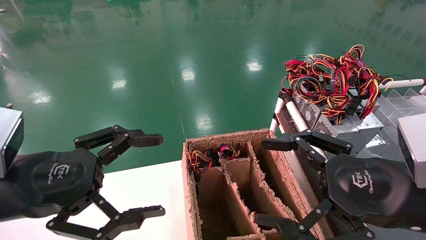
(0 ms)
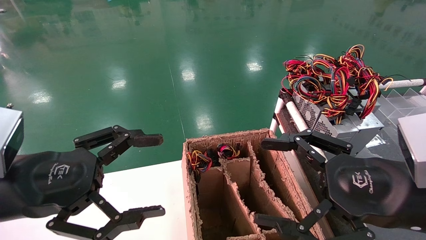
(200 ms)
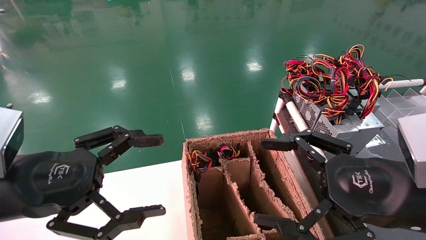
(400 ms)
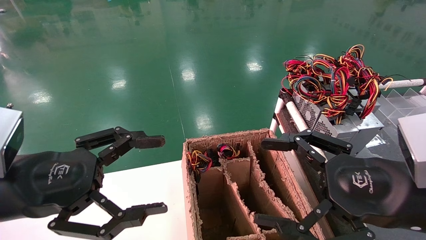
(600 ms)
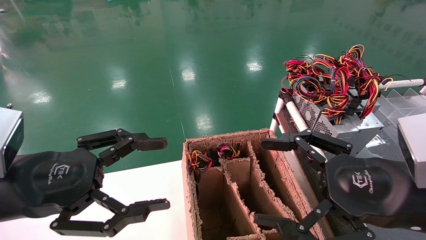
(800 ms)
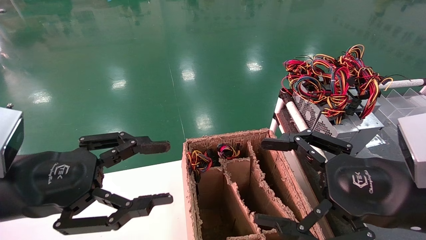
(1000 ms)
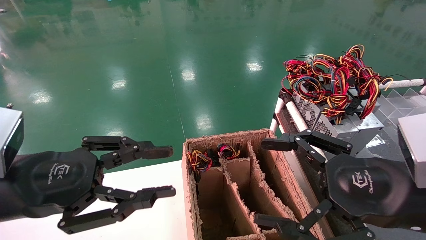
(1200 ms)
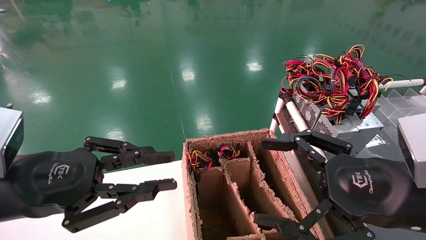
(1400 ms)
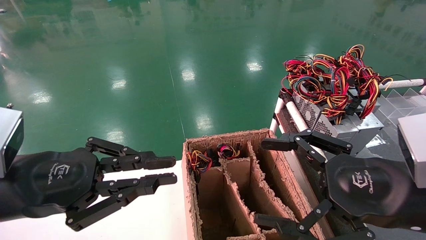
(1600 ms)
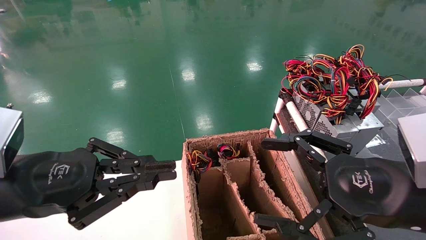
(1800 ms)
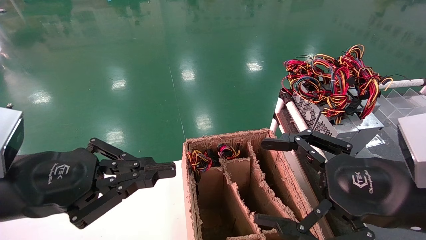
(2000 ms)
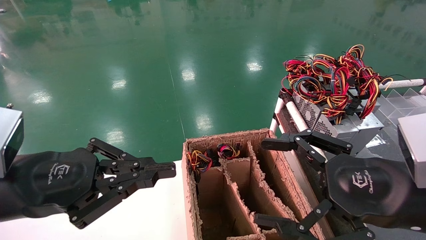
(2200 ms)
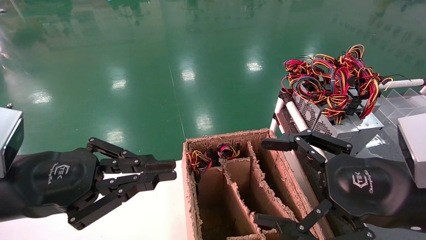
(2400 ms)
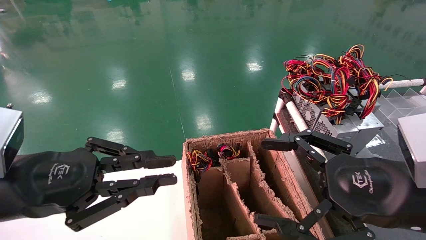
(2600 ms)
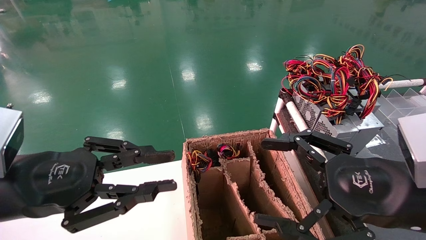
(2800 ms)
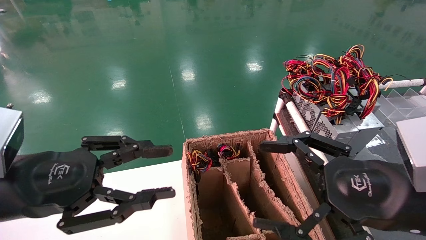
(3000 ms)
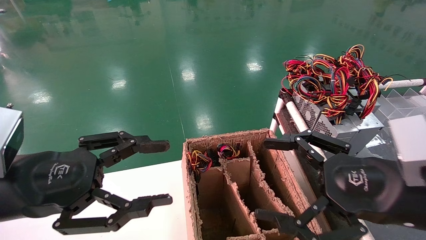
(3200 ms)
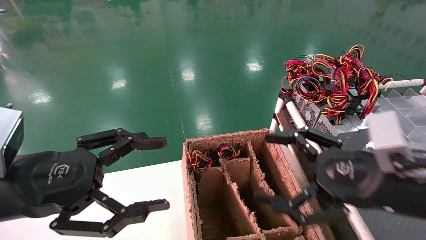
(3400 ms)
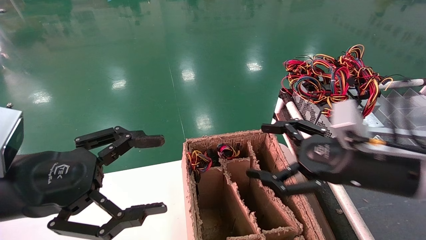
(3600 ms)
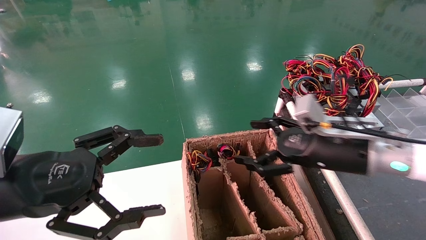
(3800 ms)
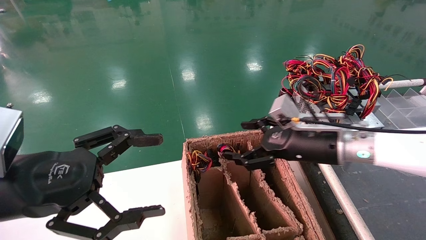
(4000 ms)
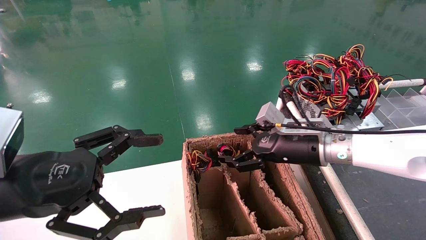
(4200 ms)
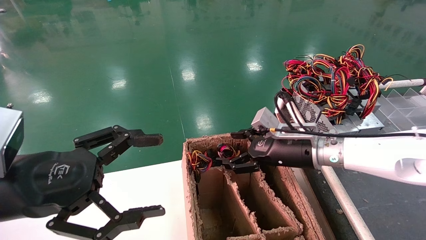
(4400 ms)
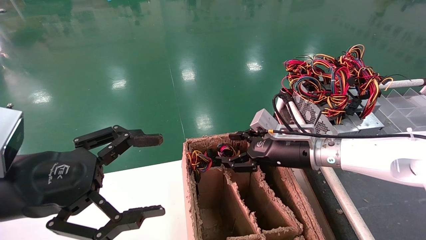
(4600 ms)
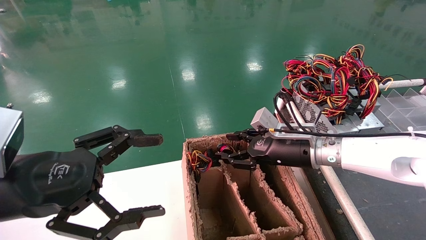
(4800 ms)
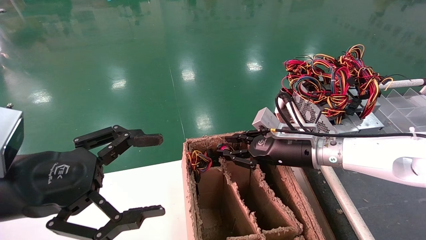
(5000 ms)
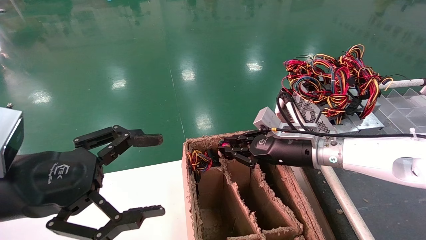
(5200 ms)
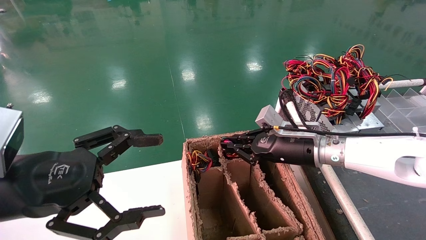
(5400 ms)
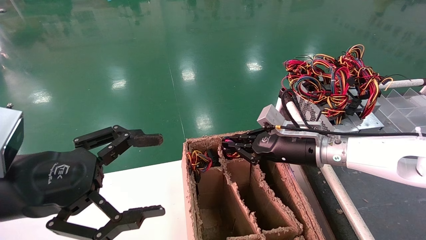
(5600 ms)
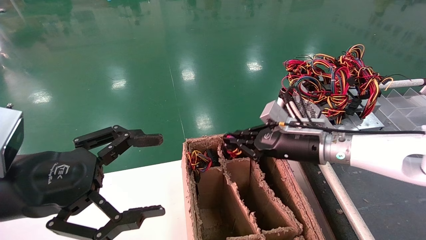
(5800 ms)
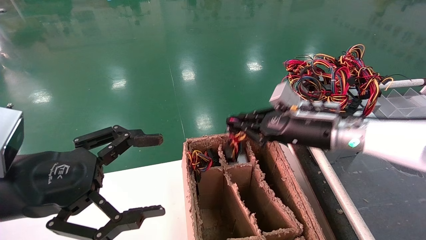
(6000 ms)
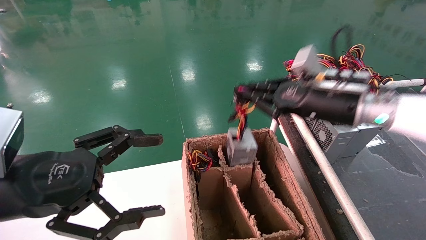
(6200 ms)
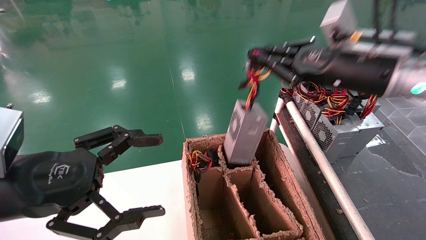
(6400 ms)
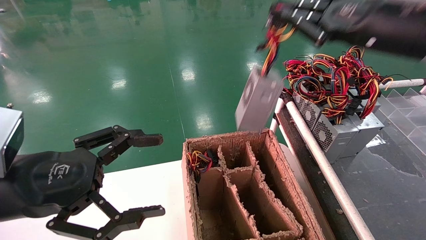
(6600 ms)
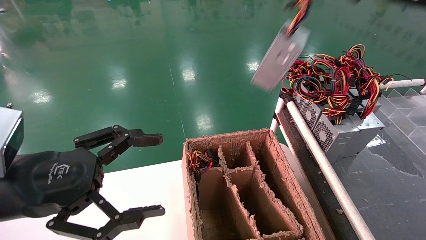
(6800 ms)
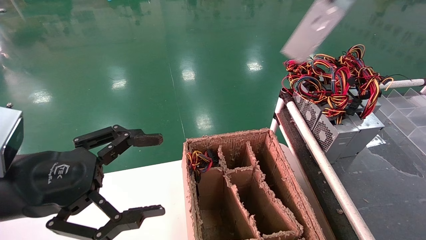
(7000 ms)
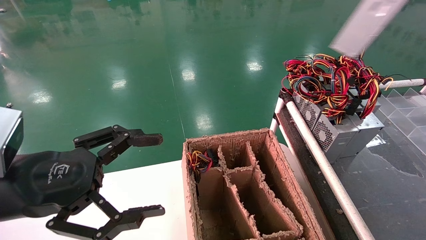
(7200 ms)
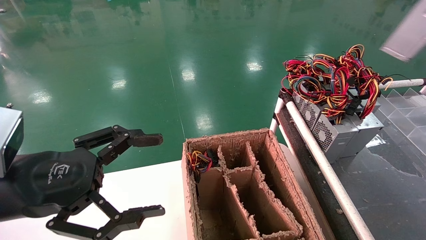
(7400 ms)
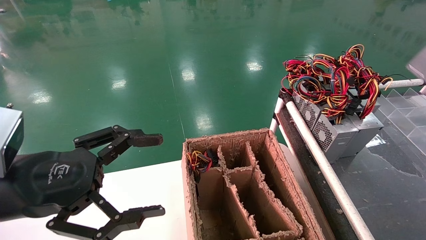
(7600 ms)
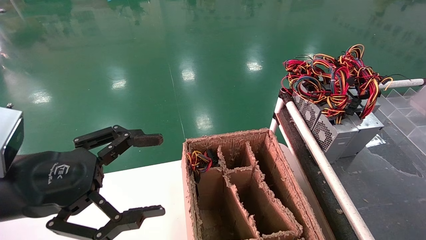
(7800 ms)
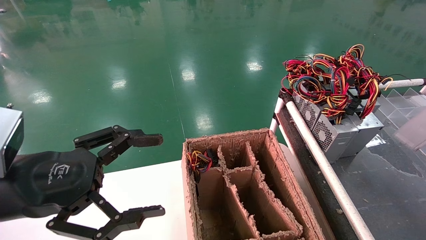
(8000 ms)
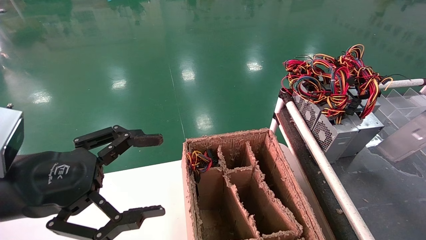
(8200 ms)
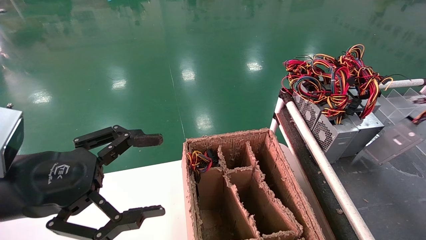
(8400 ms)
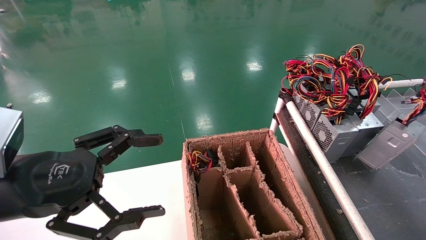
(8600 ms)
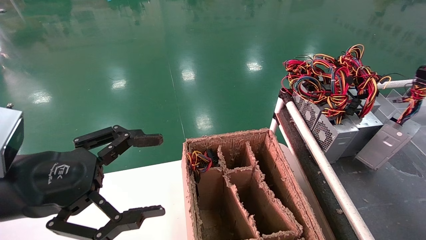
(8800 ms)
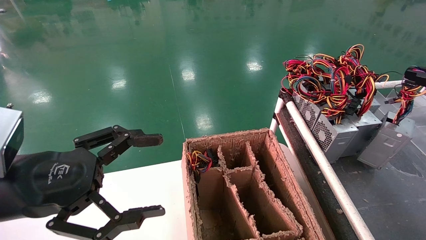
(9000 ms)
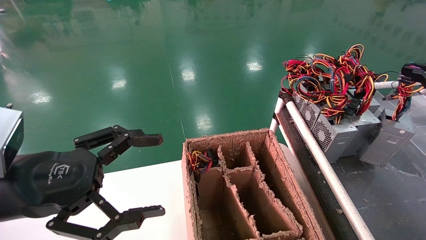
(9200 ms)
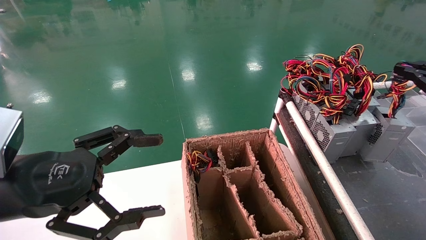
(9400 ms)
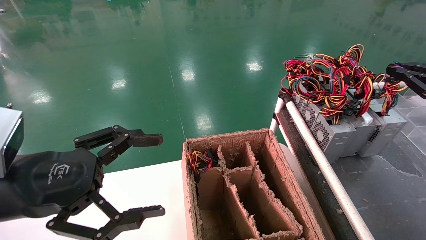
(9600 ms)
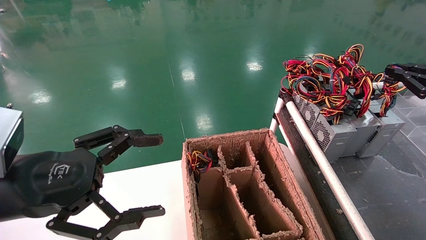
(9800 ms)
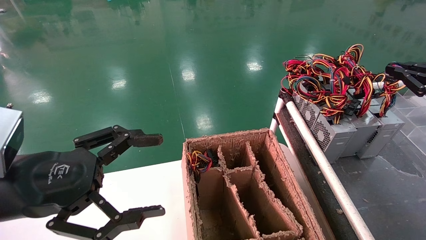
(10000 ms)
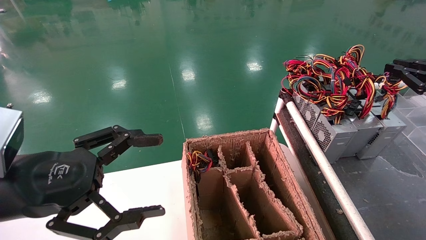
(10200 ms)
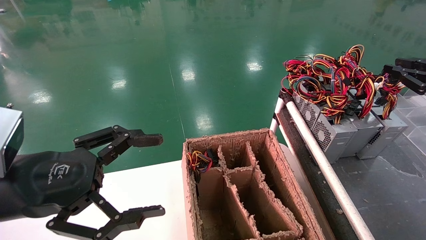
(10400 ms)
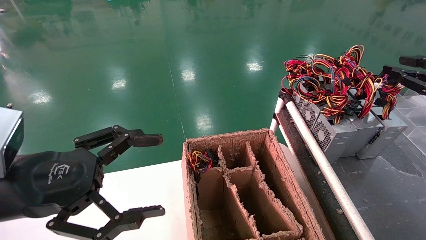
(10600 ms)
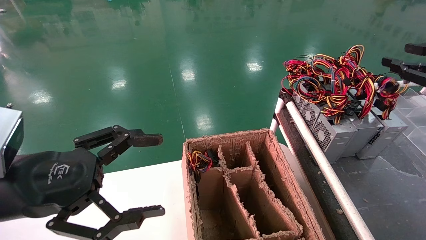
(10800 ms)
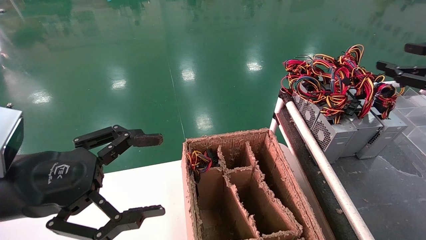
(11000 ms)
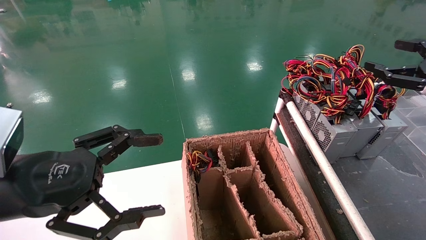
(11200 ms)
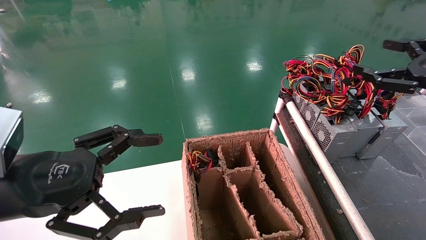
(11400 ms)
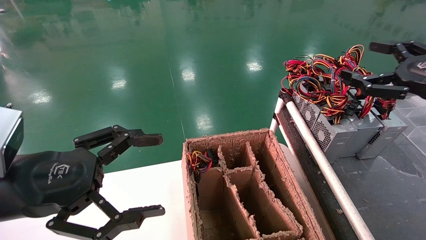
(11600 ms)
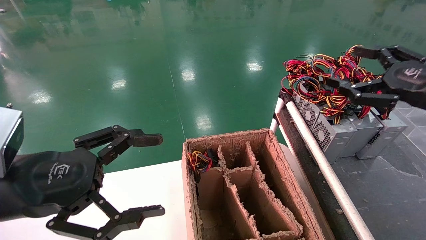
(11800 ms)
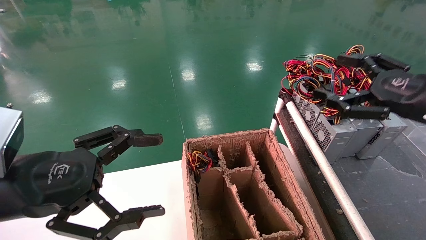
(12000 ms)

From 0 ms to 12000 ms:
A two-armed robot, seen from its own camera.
Step, from 2000 ms to 5600 ms: Grab and lift the power supply from the large box.
Step, from 5800 ms to 10200 ms: Place the power supply on the operating table.
From 0 ms to 1600 ms: The left gripper closes up.
From 1600 ms to 3000 ms: Both grippers stay put.
From 3000 ms to 4400 ms: The right gripper moves forward, some 20 cm; the left gripper opens.
From 4400 ms to 6000 ms: The right gripper heads upward, covering some 5 cm, and closes its fingers.
From 6000 ms to 7600 ms: The right gripper shifts about 40 cm to the right, upward and backward.
From 7600 ms to 9000 ms: The right gripper goes about 15 cm downward and forward.
From 9000 ms to 10400 ms: There are only small adjustments of the grippers.
From 10400 ms to 12000 ms: The right gripper shifts approximately 10 cm to the left, and opens its fingers.

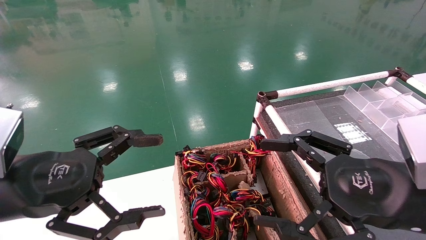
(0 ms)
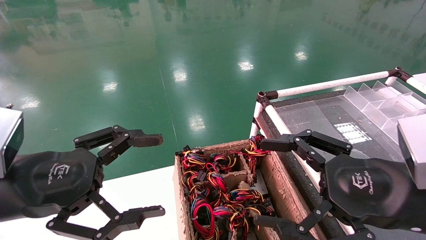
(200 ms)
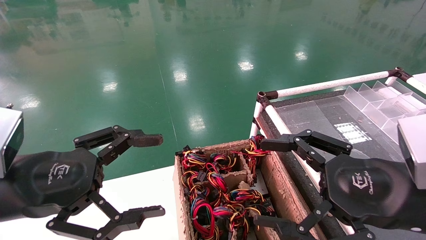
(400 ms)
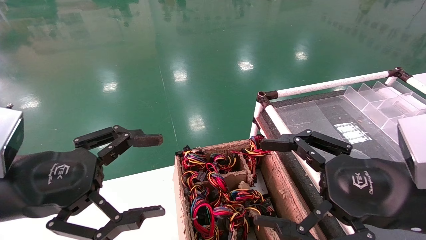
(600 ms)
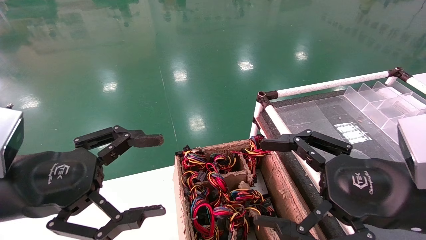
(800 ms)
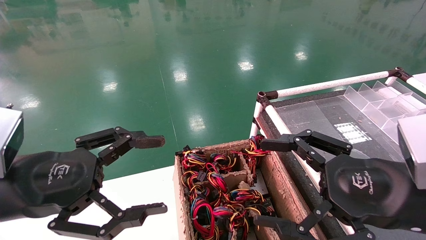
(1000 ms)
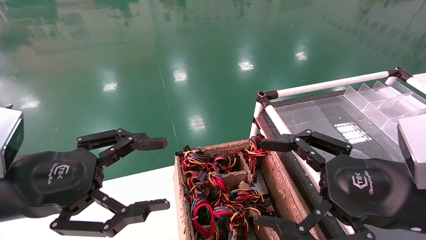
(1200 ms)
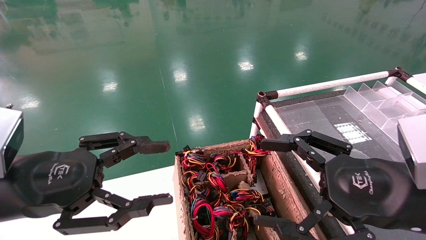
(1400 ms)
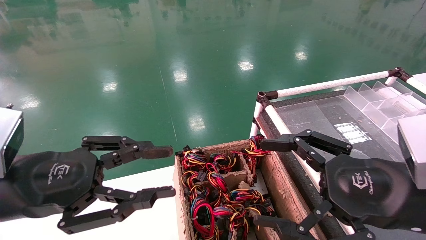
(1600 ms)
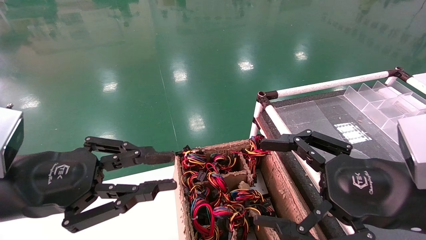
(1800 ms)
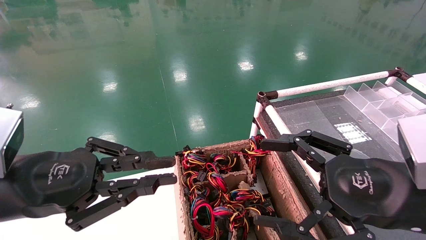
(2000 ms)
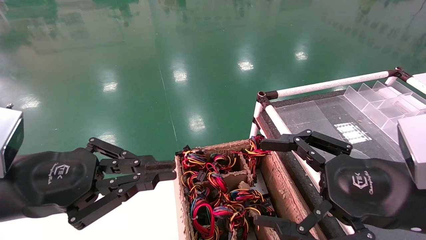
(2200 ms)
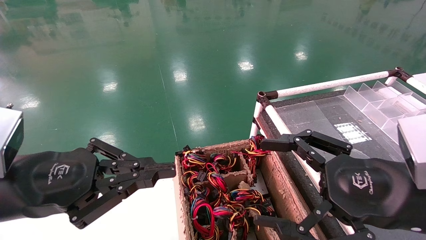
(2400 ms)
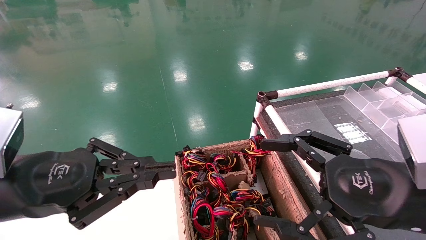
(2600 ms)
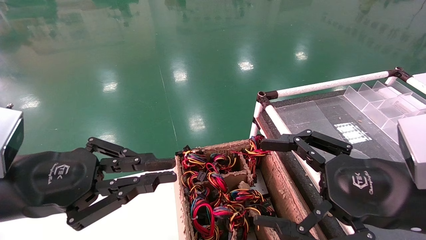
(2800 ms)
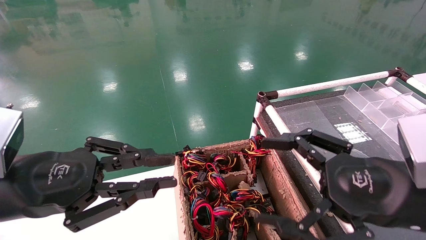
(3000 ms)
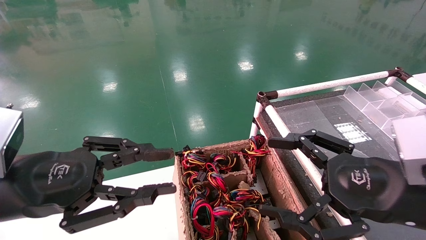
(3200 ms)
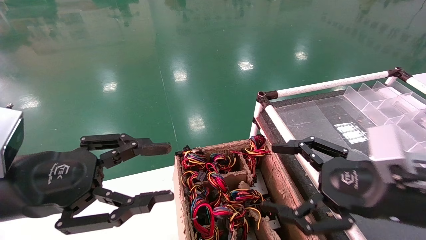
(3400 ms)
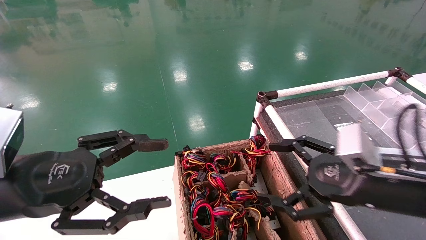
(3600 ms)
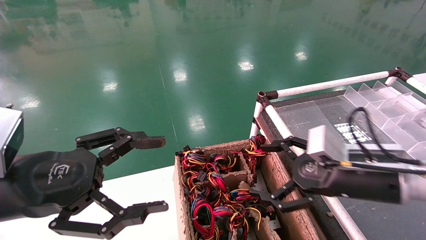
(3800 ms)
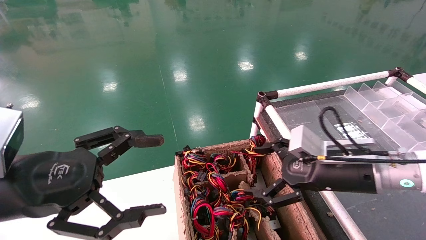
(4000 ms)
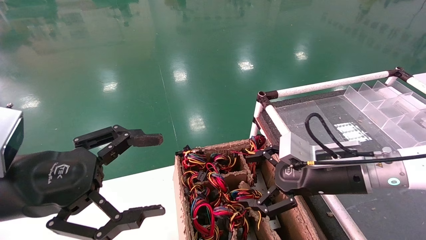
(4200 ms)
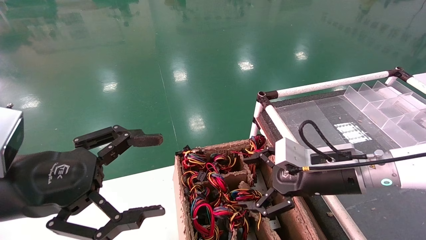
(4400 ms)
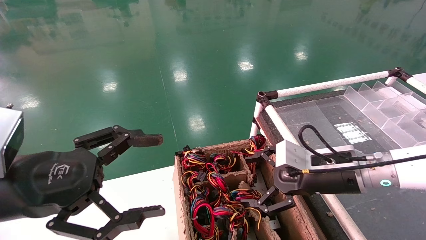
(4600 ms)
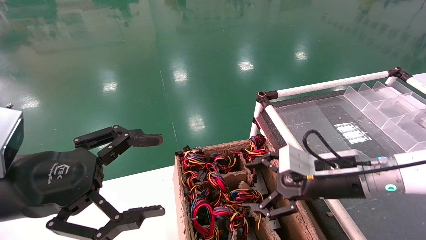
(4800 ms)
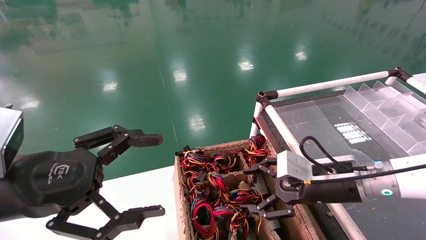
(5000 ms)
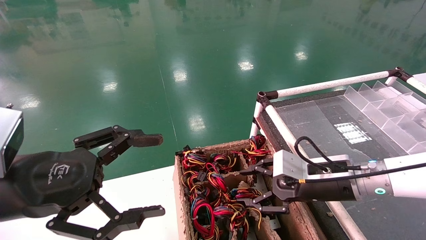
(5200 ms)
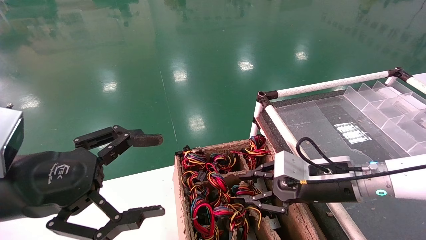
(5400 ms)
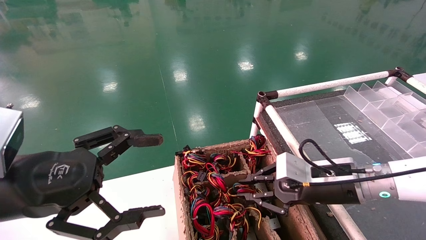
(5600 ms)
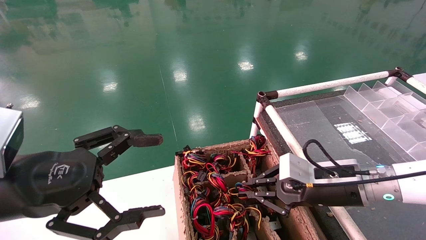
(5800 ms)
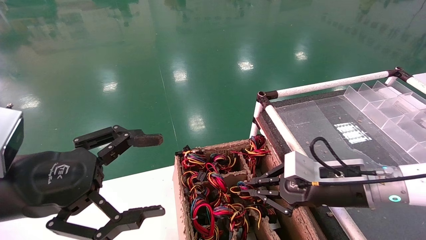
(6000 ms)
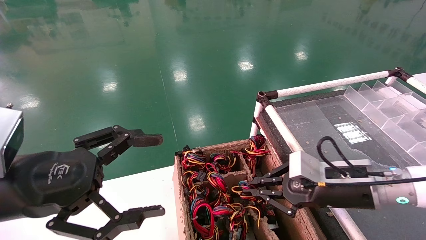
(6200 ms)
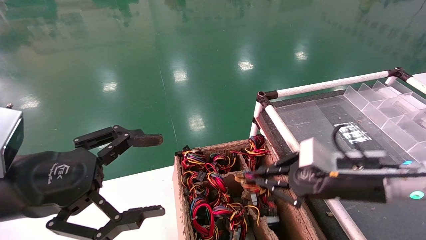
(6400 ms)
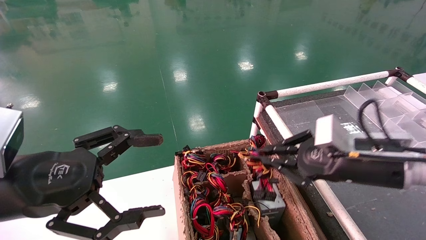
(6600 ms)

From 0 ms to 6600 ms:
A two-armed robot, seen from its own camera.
Step, from 2400 ms to 5800 ms: Grab and lift the power supply from the large box.
From 0 ms to 1600 ms: The left gripper closes its fingers.
From 1600 ms to 3200 ms: There are only small adjustments of the grippers.
From 3200 ms to 5000 ms: The left gripper opens. Meanwhile the right gripper is displaced forward and downward by some 15 cm.
From 5000 ms to 6600 ms: The right gripper is displaced upward by approximately 5 cm, and closes.
